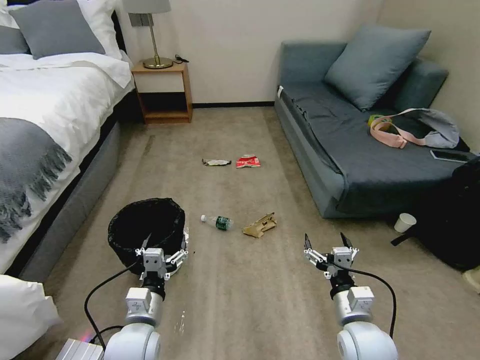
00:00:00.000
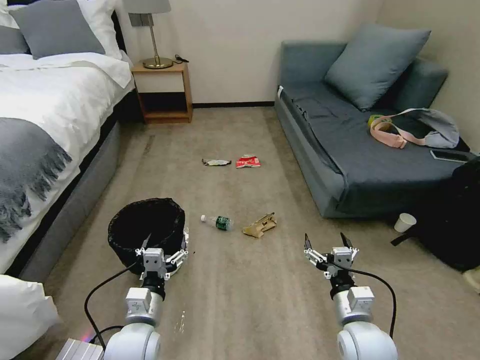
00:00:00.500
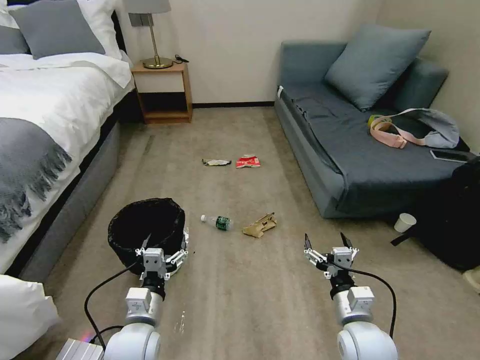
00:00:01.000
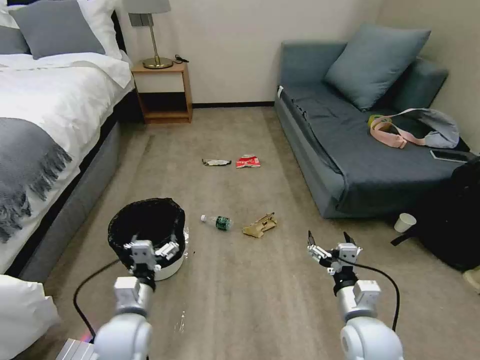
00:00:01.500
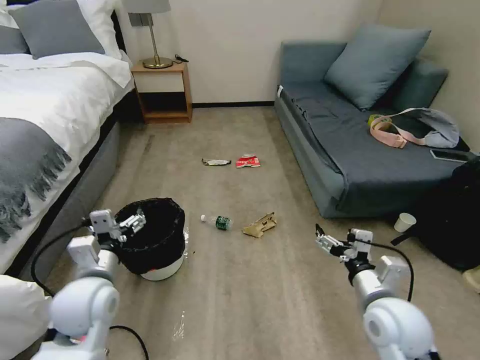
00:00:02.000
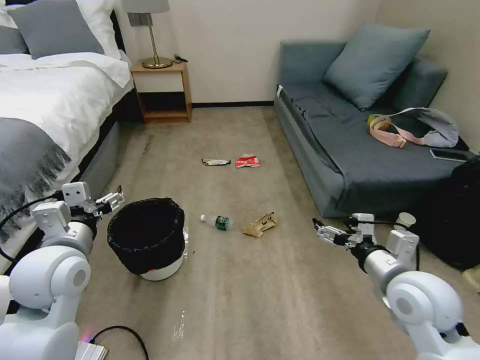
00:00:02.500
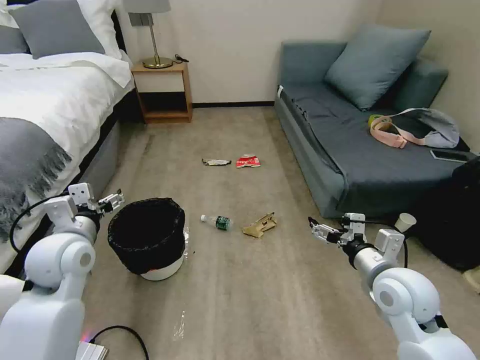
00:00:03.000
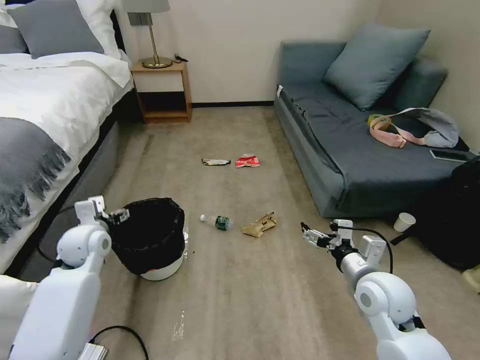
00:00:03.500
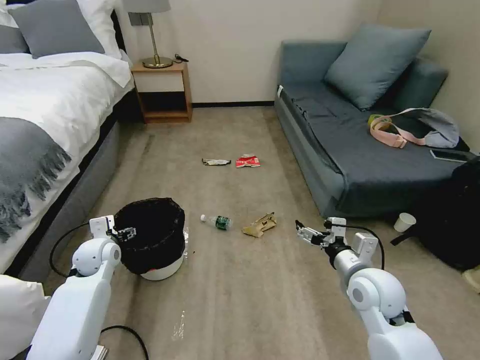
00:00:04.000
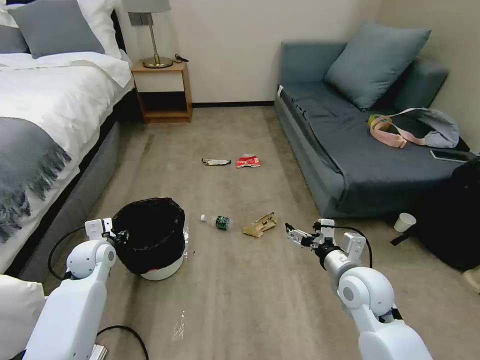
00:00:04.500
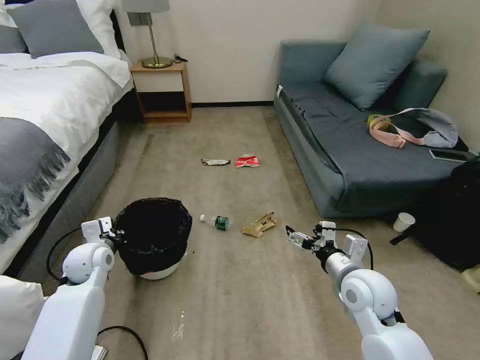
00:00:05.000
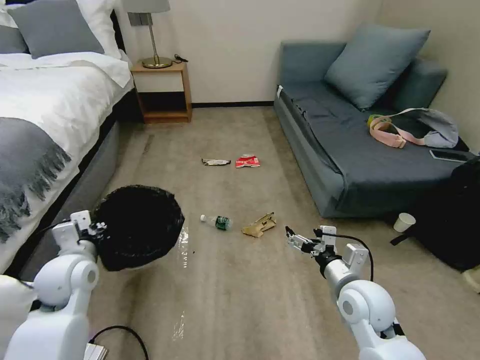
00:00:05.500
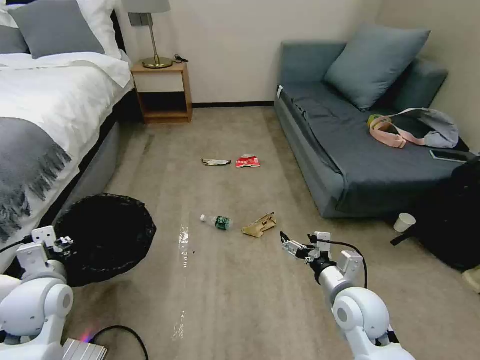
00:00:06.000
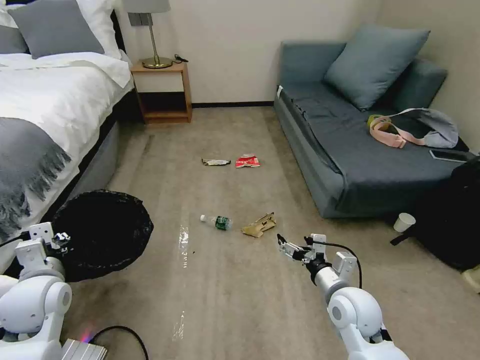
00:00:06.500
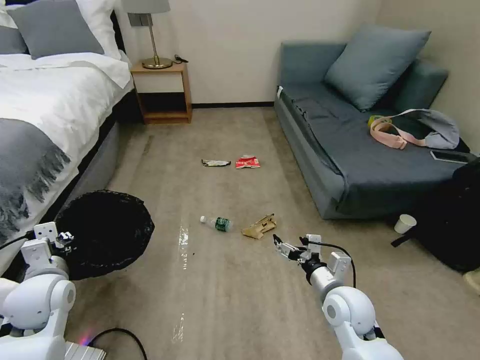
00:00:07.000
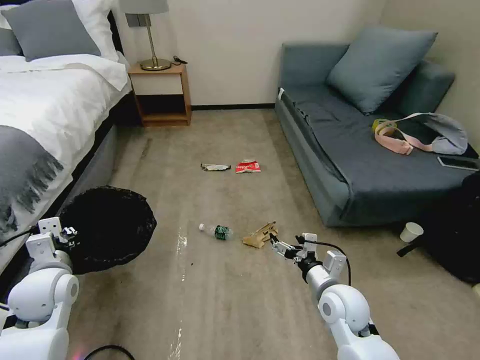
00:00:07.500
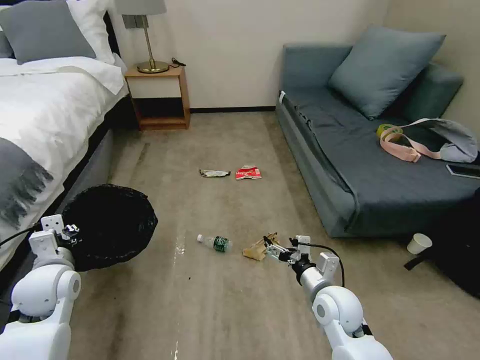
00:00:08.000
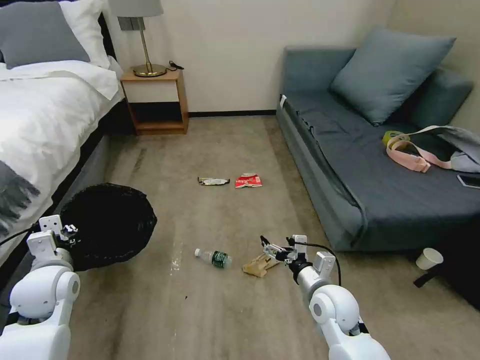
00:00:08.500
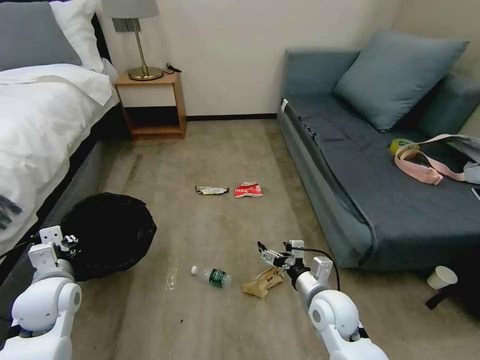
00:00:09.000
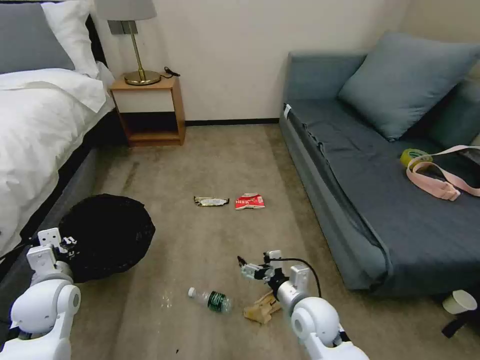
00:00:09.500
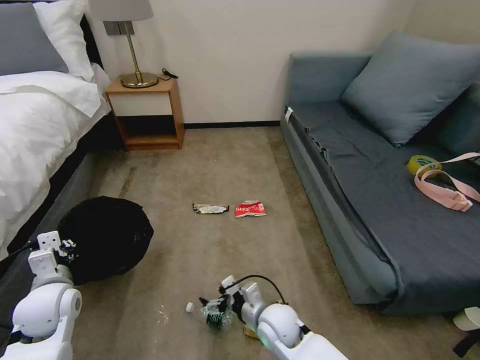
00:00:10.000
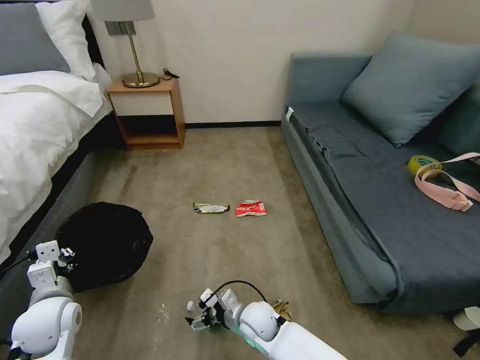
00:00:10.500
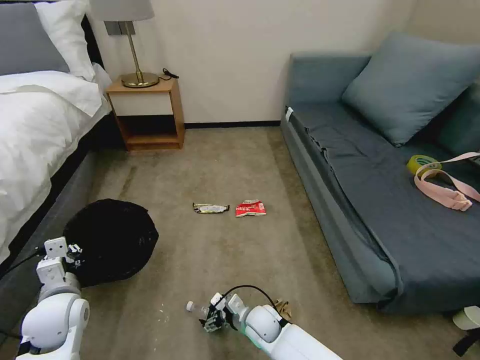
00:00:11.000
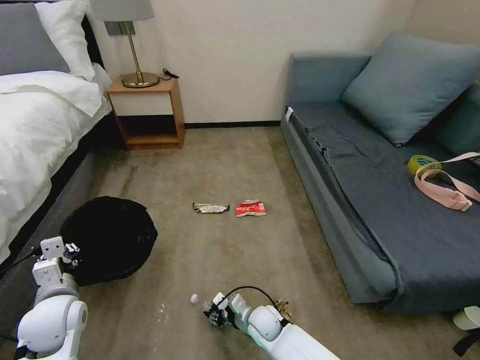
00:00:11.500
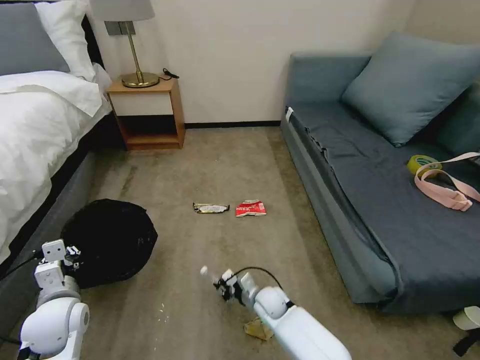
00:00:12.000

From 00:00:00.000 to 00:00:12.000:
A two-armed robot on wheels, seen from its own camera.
Task of the whole recording: Pick up the trash bin, then pick up the garbage on the floor and place it into the trash bin.
From 00:00:02.000 to 00:00:04.000: The right gripper travels forward by approximately 5 cm; the left gripper is displaced forward, to the left and downward by roughly 20 cm.
From 00:00:04.000 to 00:00:06.000: The right gripper shifts by some 5 cm, while the left gripper shifts roughly 15 cm backward and upward, and closes.
From 00:00:06.000 to 00:00:08.000: The right gripper shifts by roughly 5 cm.
From 00:00:08.000 to 00:00:10.000: The right gripper heads to the left and downward, covering about 15 cm.
From 00:00:10.000 to 00:00:12.000: The right gripper heads downward and forward, covering approximately 10 cm, and closes up.

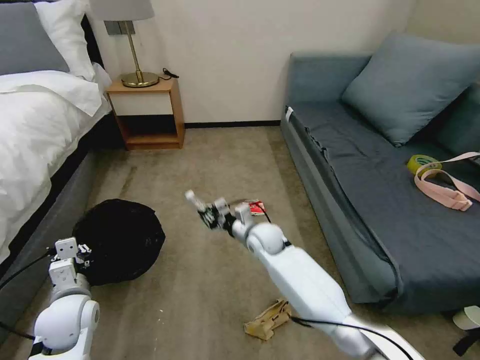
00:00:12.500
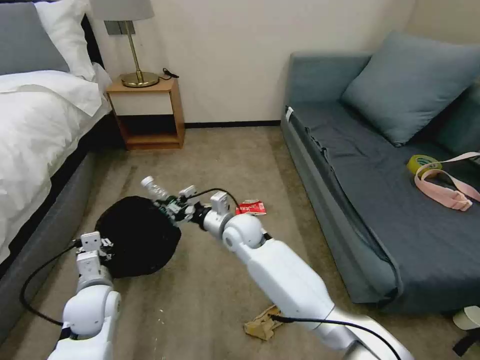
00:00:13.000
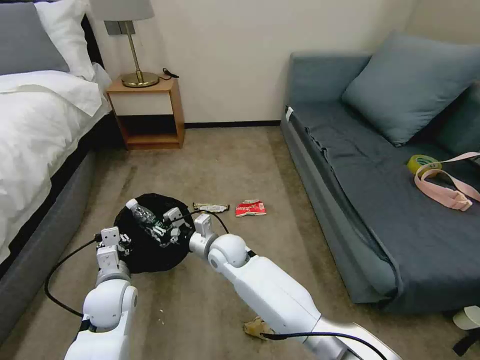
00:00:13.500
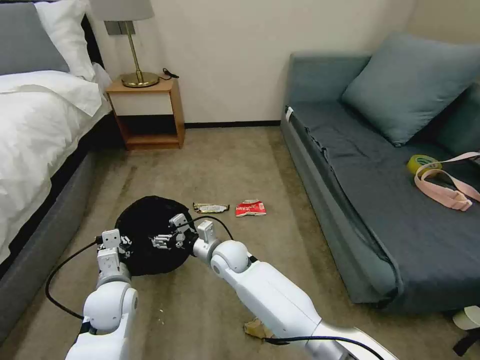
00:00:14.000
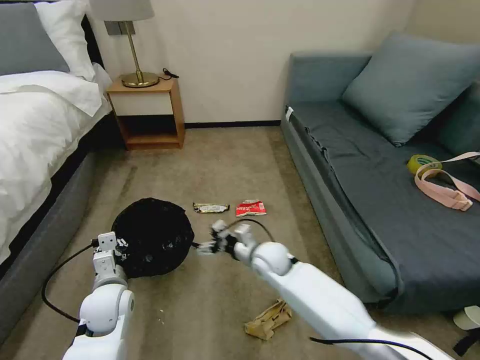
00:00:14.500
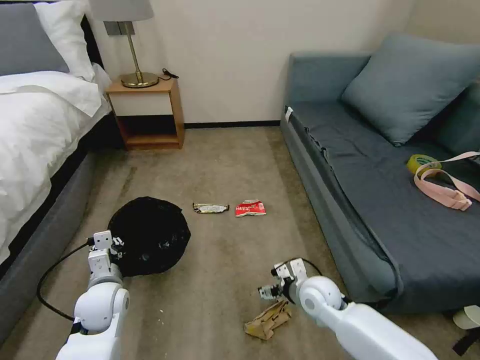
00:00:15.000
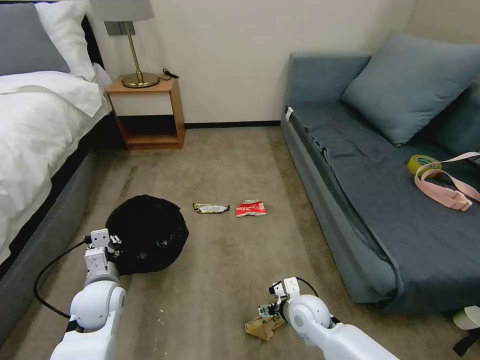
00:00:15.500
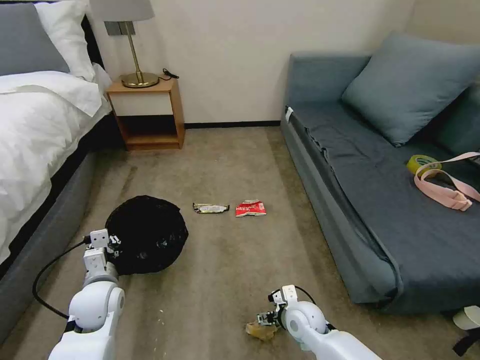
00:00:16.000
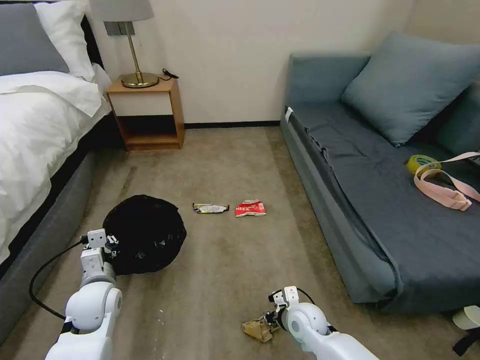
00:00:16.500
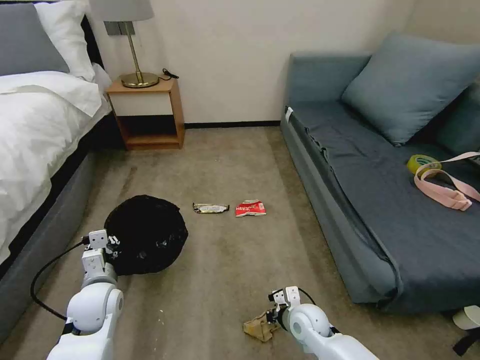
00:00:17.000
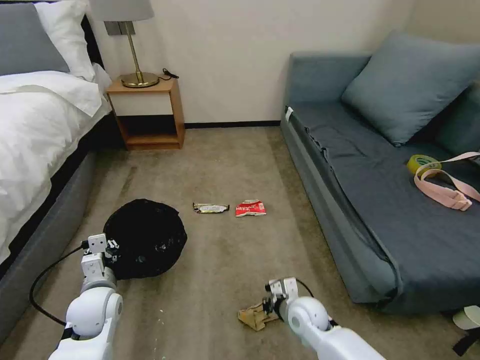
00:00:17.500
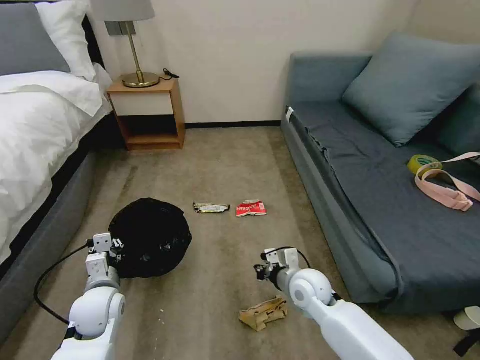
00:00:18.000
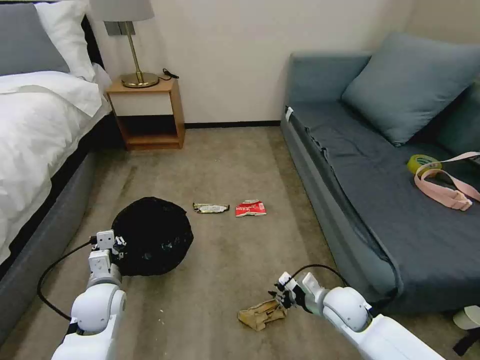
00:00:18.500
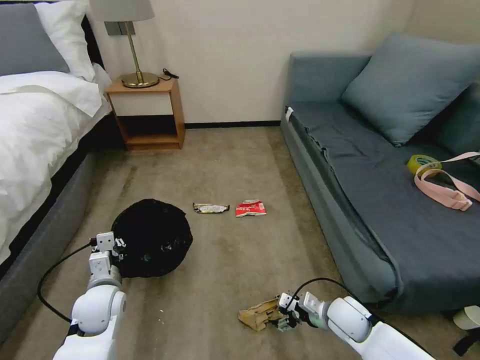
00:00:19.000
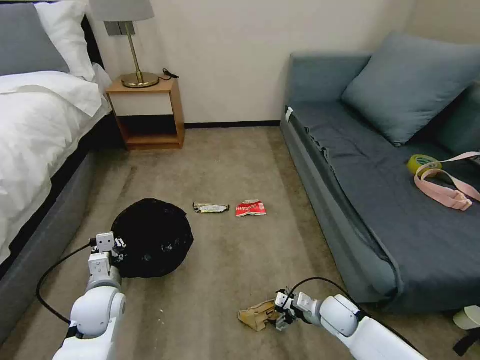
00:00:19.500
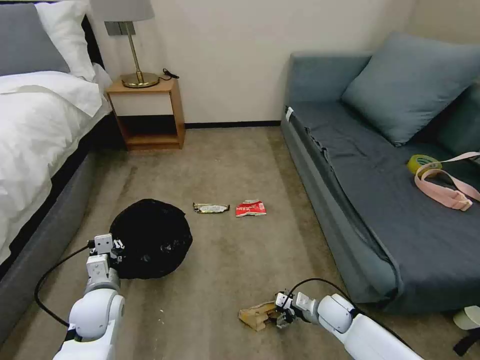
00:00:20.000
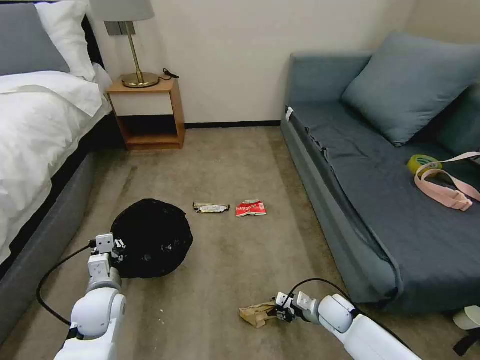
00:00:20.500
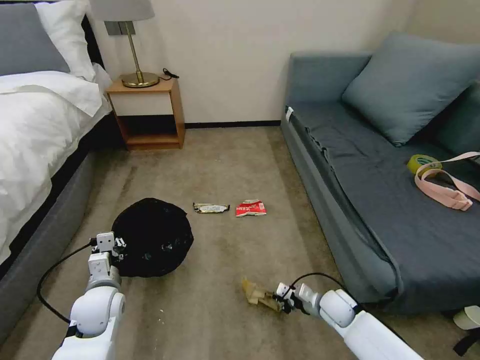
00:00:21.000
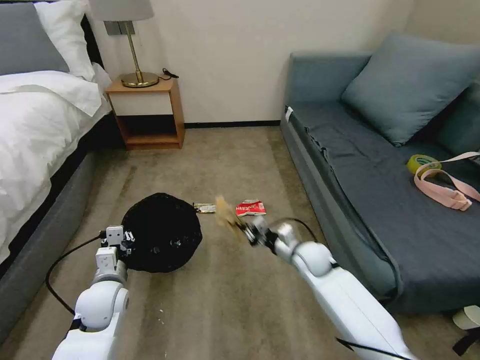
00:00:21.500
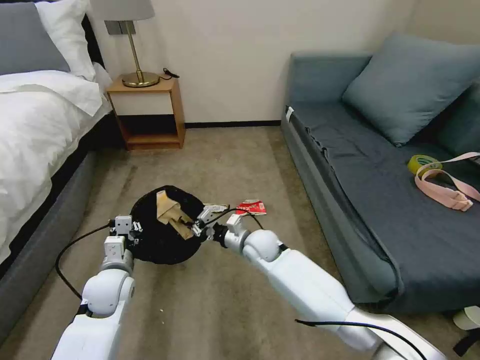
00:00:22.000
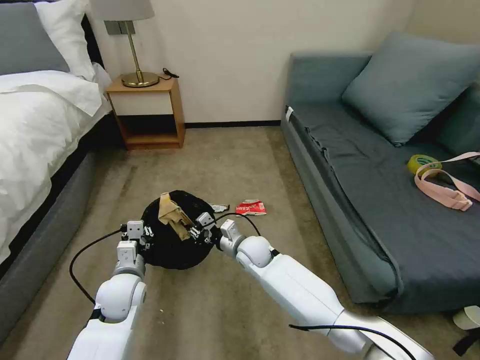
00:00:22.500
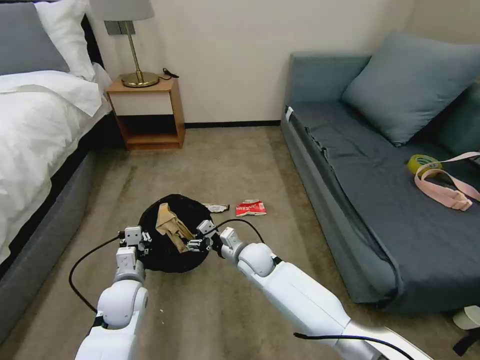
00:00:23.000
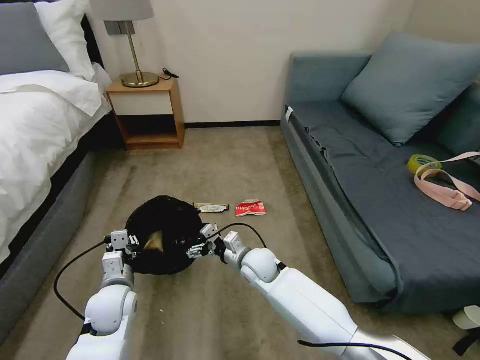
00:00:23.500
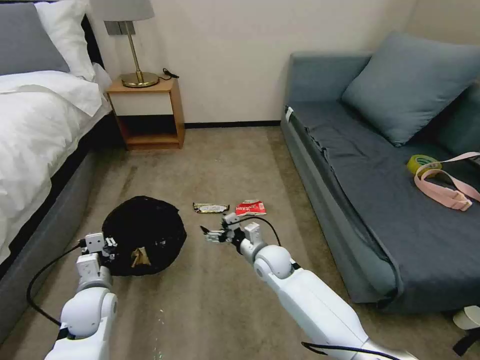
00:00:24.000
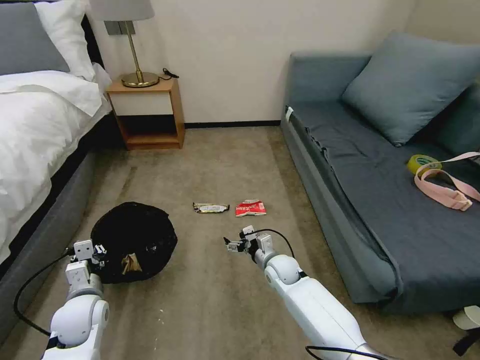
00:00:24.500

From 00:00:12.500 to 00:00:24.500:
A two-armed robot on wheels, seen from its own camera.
Task of the whole recording: Pick up the trash bin, then pick up the garbage on the floor and place it into the trash bin.
From 00:00:12.500 to 00:00:14.500: The right gripper moves some 10 cm to the left and comes back, and opens its fingers. The left gripper moves to the right, roughly 5 cm.
From 00:00:14.500 to 00:00:16.500: The right gripper goes roughly 20 cm backward, downward and to the right, and closes.
From 00:00:16.500 to 00:00:18.500: The right gripper moves to the right and upward, roughly 10 cm.
From 00:00:18.500 to 00:00:20.500: The right gripper shifts about 10 cm downward, and opens, then closes again.
From 00:00:20.500 to 00:00:22.500: The left gripper moves some 5 cm, while the right gripper travels to the left, upward and forward by about 30 cm.
From 00:00:22.500 to 00:00:24.500: The right gripper is displaced to the right and downward by some 10 cm, and opens. Meanwhile the left gripper travels to the left by roughly 10 cm.

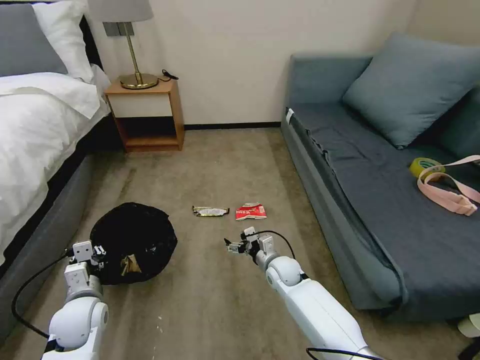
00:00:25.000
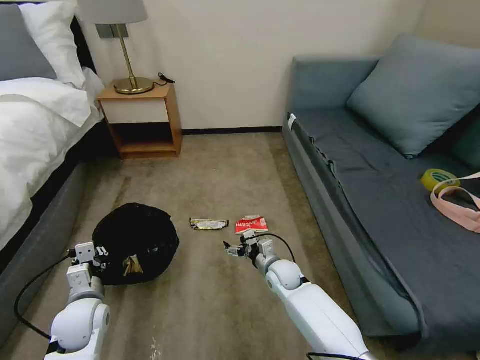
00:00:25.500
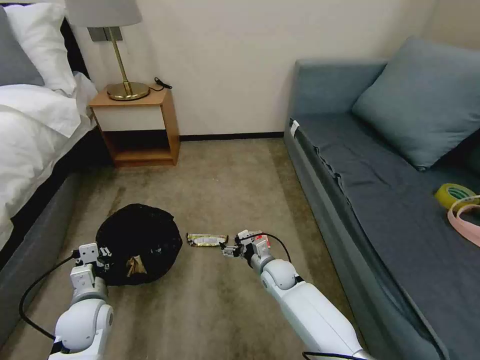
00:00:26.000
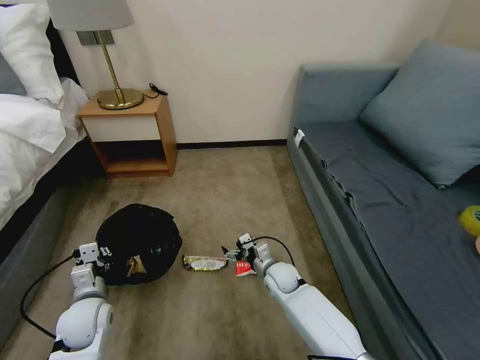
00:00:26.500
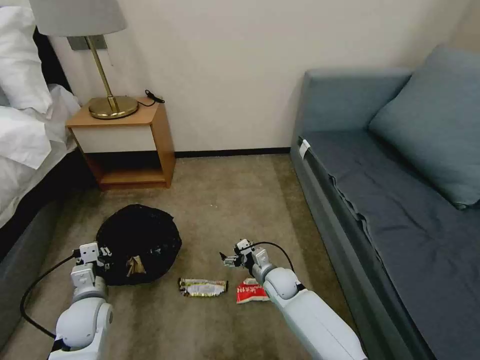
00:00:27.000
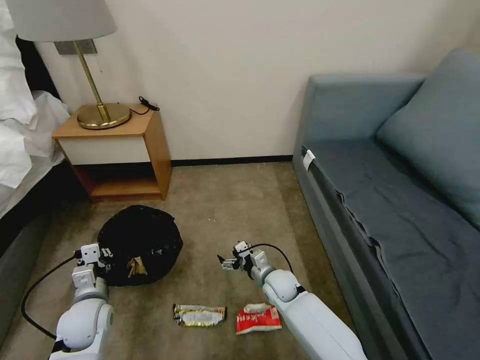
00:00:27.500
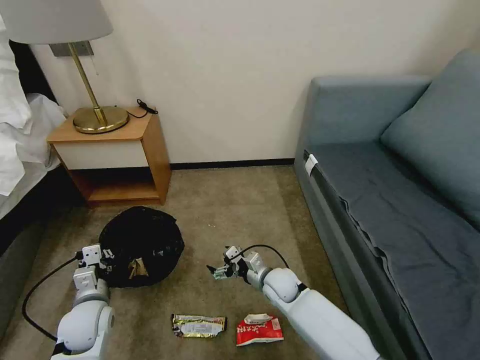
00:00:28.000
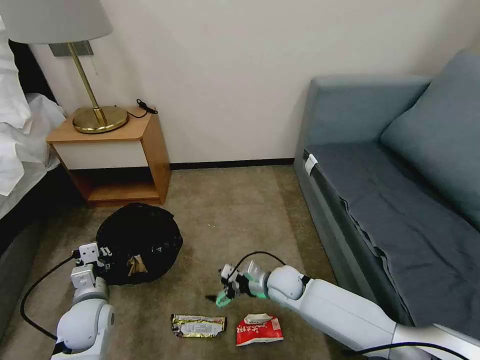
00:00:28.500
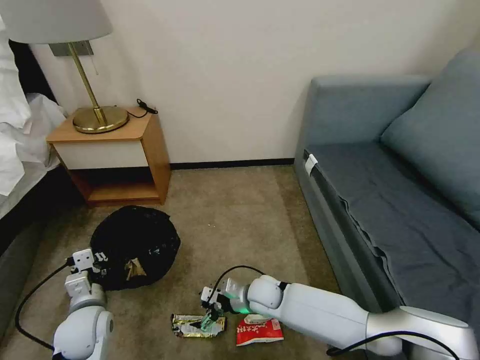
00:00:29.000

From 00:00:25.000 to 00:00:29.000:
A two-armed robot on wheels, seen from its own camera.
Task of the whole recording: Pick up the trash bin, then pick up the garbage on the floor and place it into the trash bin.
From 00:00:27.000 to 00:00:29.000: The right gripper changes place by about 5 cm.
